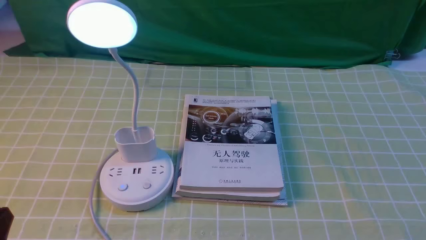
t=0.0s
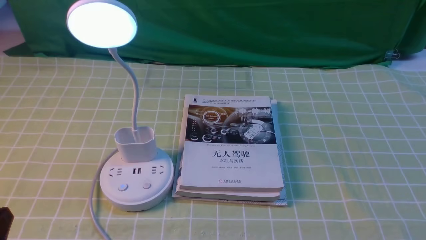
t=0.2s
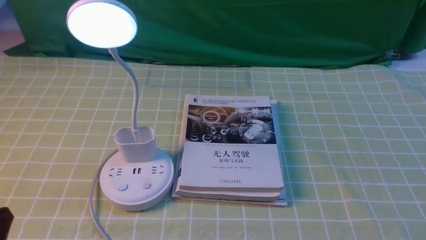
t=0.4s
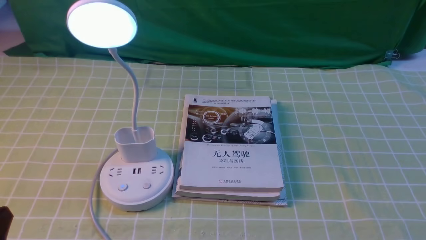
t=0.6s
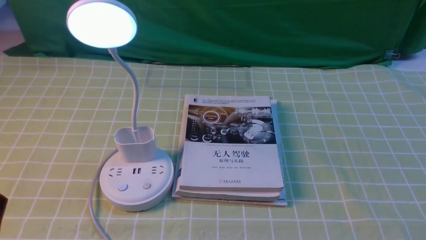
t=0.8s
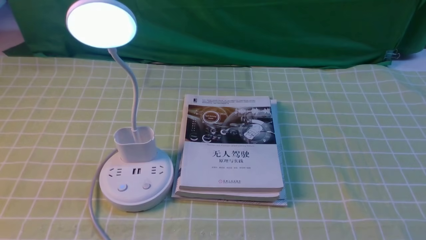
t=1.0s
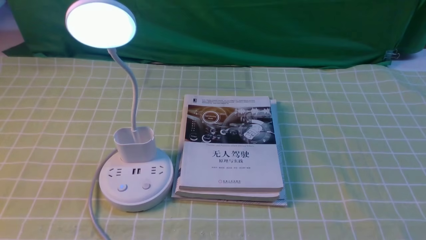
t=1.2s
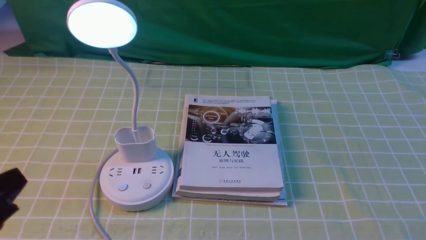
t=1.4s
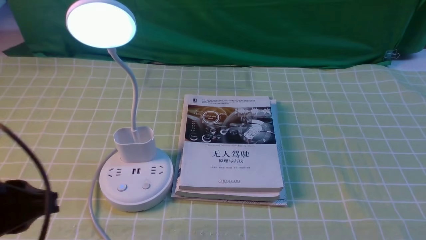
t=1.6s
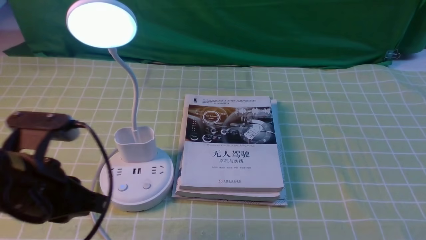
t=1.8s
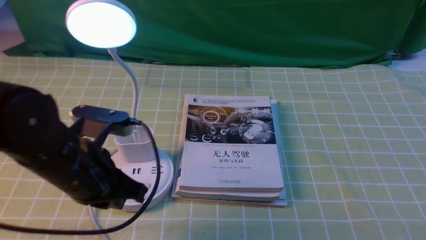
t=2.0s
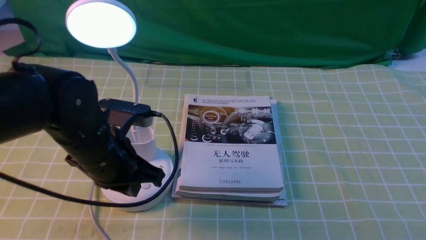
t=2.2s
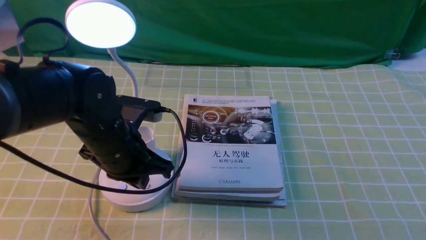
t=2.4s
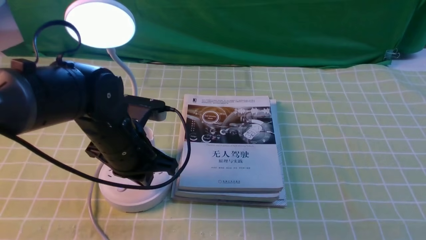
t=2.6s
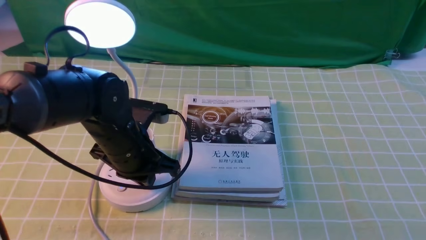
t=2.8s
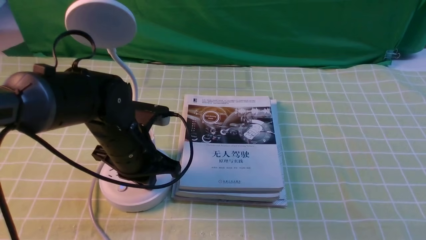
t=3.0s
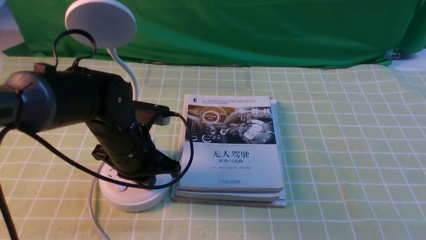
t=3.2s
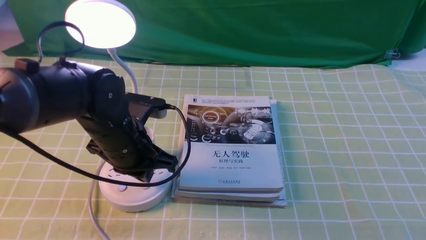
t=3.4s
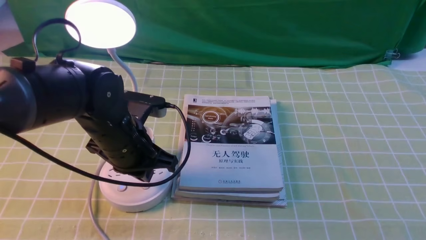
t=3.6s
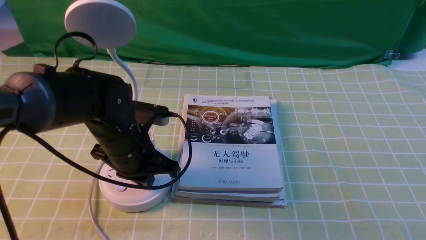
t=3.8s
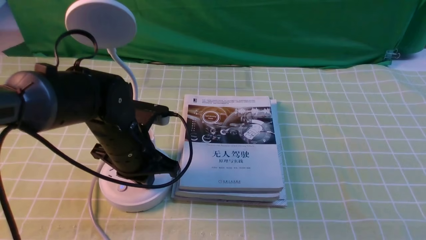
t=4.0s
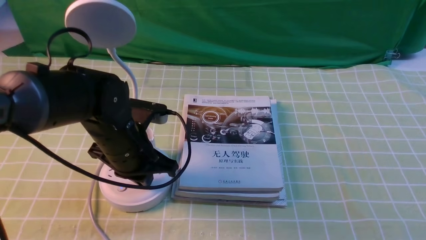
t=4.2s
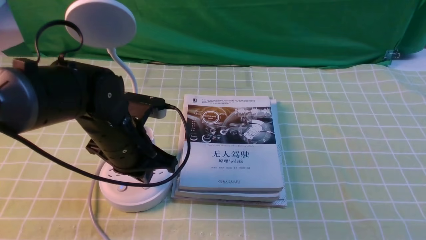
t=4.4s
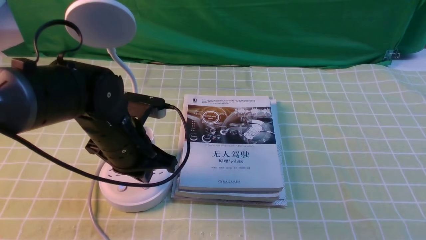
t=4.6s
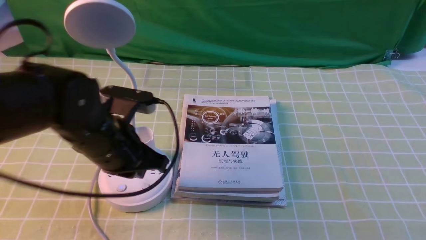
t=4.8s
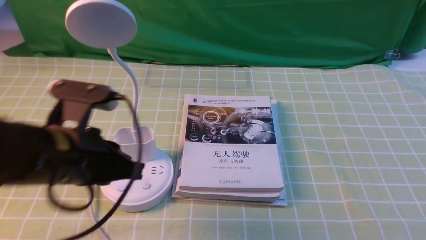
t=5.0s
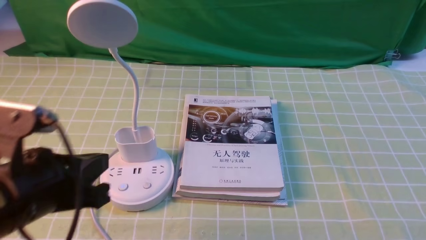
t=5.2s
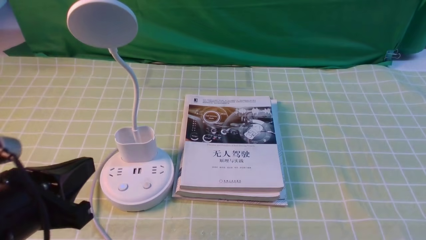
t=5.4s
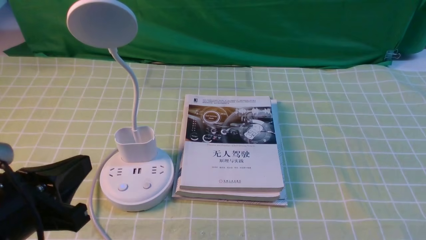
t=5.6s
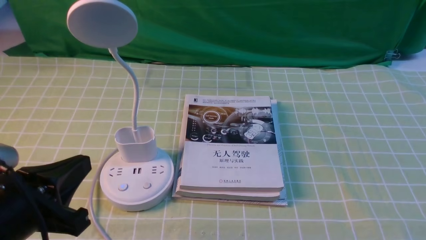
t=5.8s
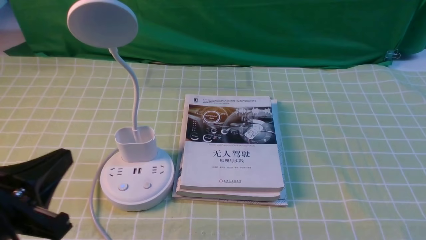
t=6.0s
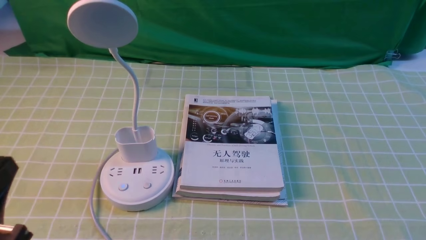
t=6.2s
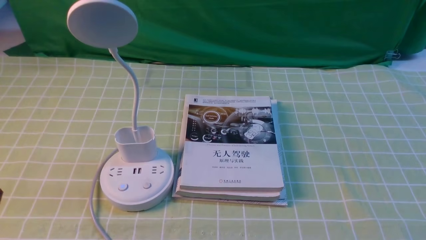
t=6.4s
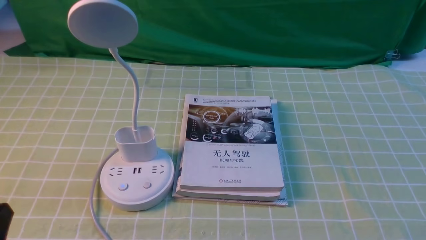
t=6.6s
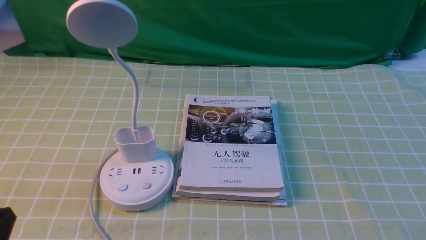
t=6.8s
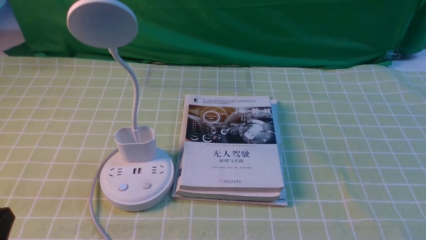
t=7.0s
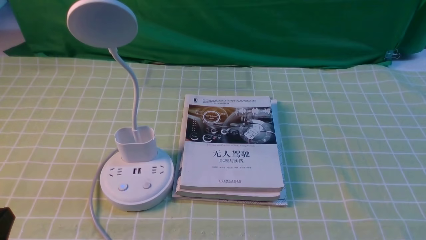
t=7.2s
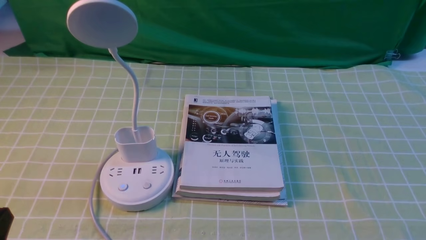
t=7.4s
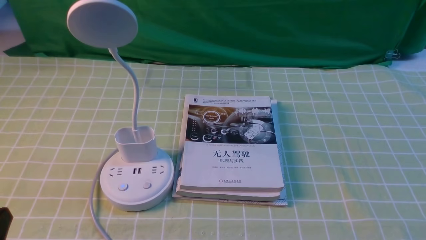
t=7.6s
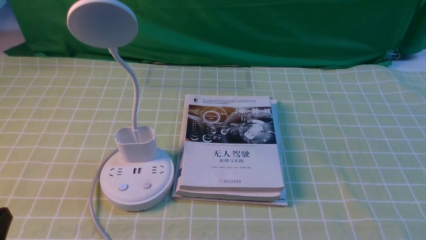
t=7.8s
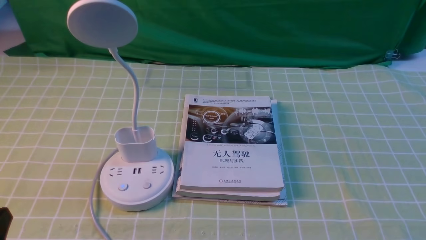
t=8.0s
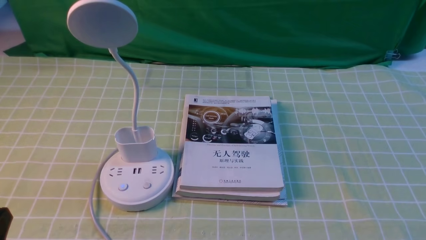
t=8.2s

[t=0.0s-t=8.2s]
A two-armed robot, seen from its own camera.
Task of the whole recording: turn off the desk lamp on the green coffee tablecloth by hand.
Step, t=0.0s to t=4.6s: use the left arm to press the button switch on the lamp holder.
t=1.6s to t=3.2s: The left gripper travels forward, to the right and downward by some 25 cm, and closes up.
t=3.2s to t=5.0s: The left gripper is displaced backward and upward by approximately 10 cm.
t=5.0s to t=6.6s: The left gripper moves backward and to the left, about 20 cm.
